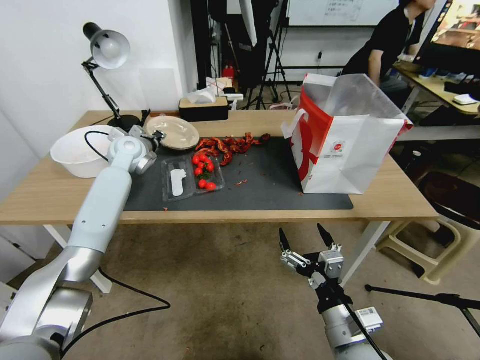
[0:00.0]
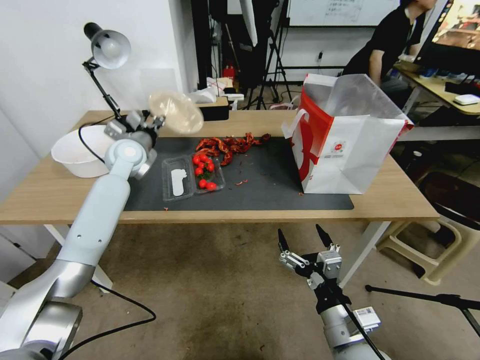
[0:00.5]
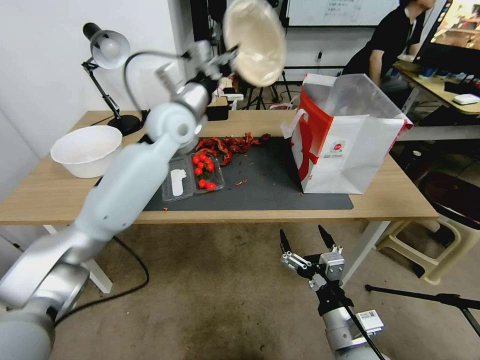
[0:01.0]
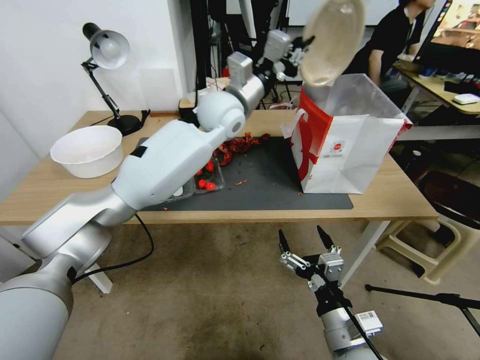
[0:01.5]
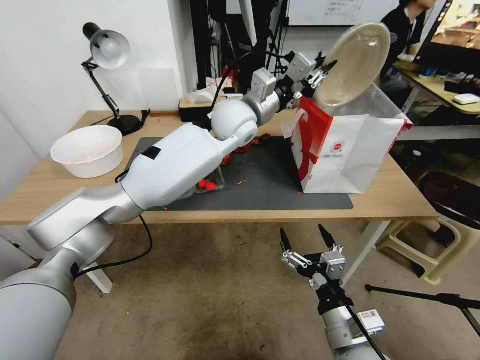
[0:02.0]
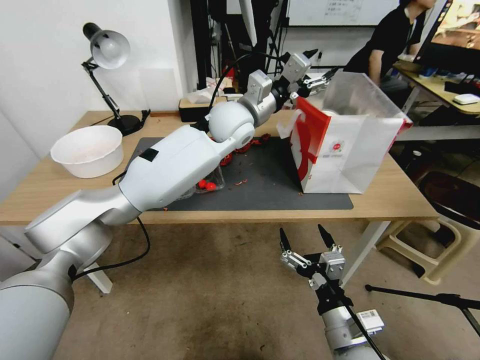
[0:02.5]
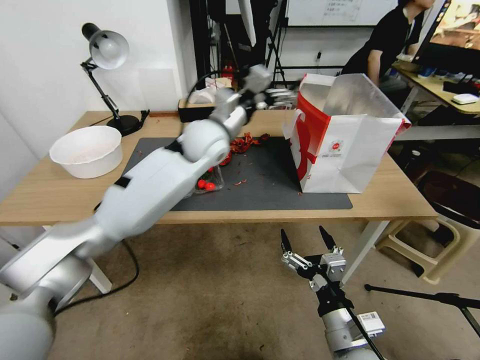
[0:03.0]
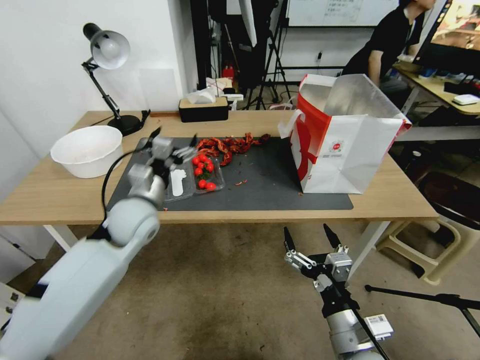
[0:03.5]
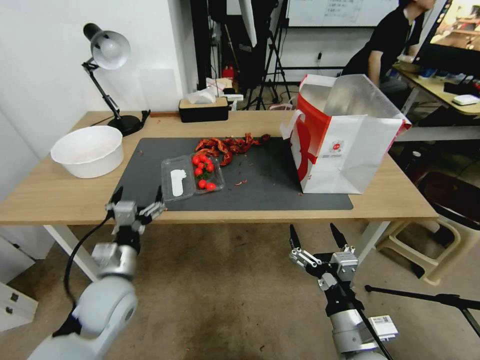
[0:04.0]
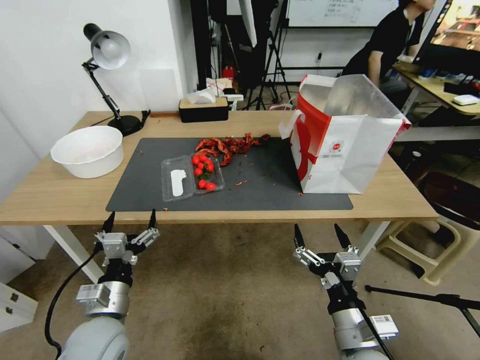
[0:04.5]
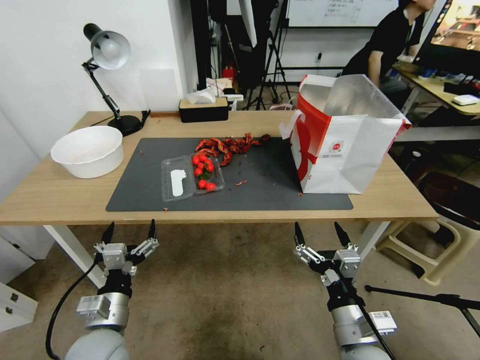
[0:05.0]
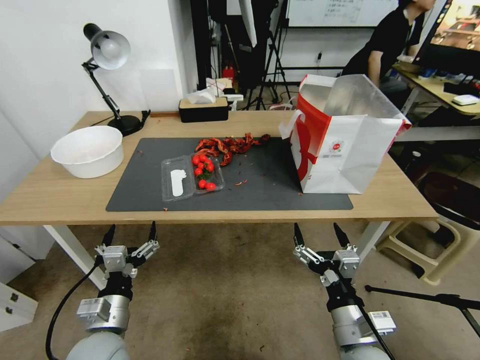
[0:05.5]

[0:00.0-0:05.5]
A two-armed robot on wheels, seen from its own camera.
0:00.0 to 0:02.0: The left gripper is displaced to the right and upward by about 30 cm.
0:02.0 to 0:03.5: The left gripper is displaced to the left, downward and backward by some 30 cm, and opens up.
0:03.5 to 0:05.5: The left gripper heads backward and downward, covering roughly 25 cm.

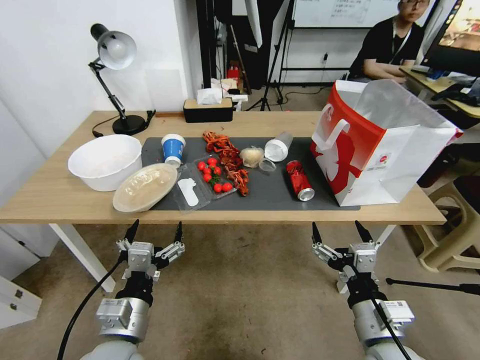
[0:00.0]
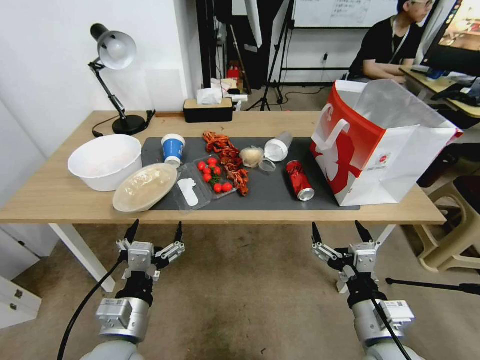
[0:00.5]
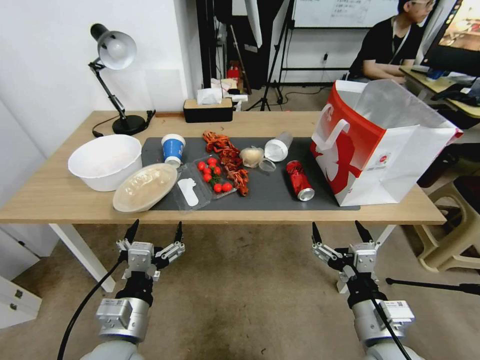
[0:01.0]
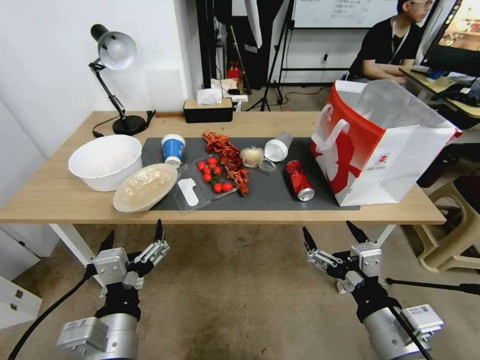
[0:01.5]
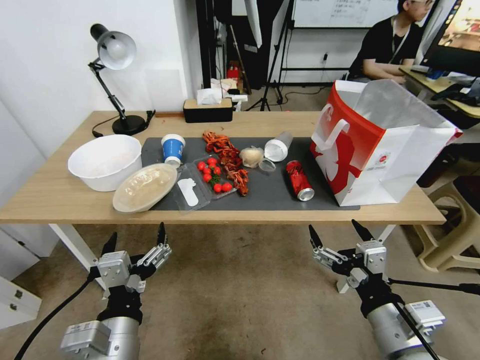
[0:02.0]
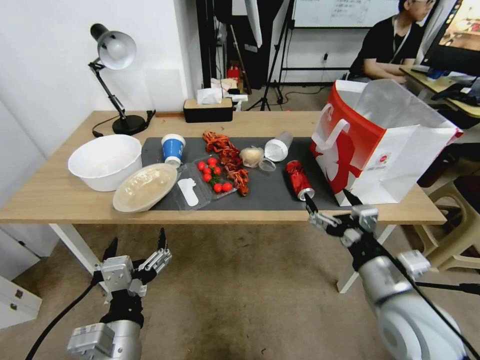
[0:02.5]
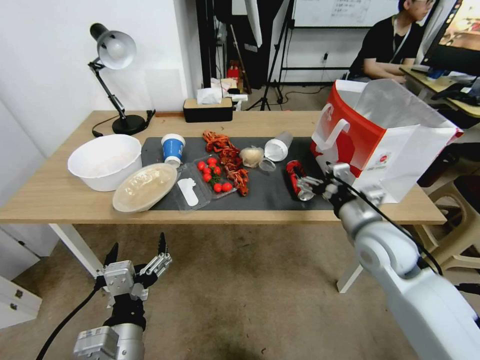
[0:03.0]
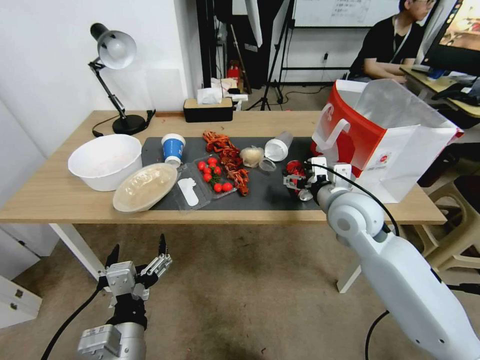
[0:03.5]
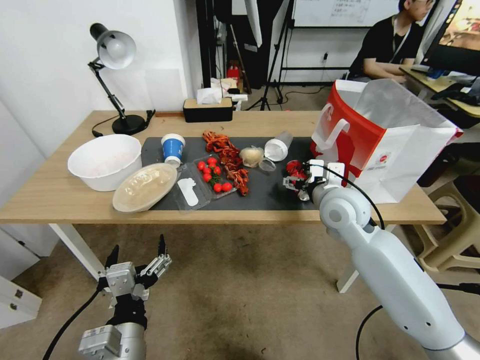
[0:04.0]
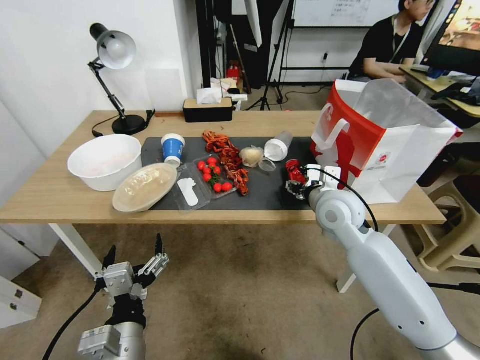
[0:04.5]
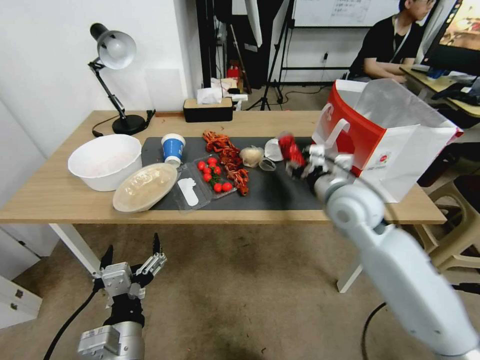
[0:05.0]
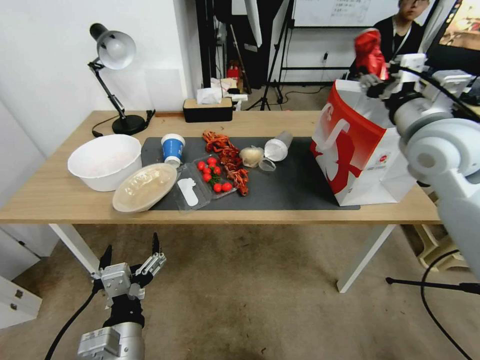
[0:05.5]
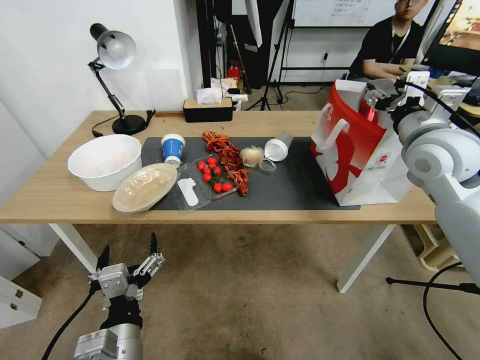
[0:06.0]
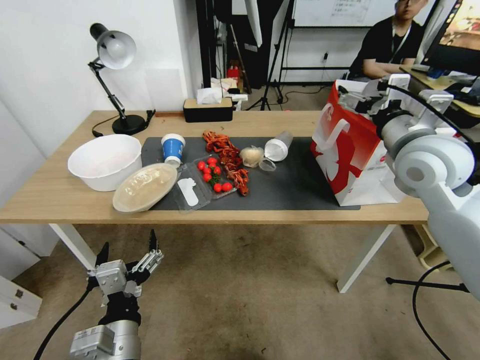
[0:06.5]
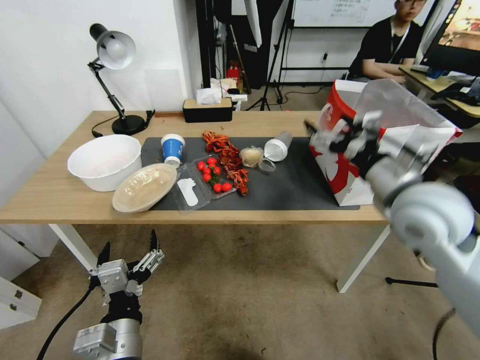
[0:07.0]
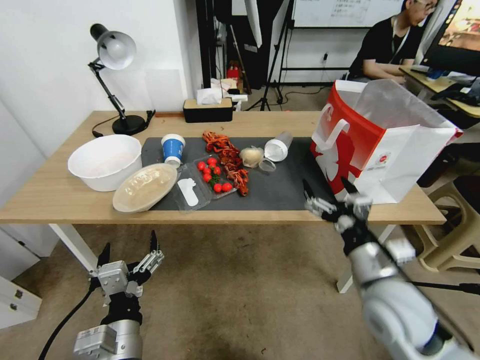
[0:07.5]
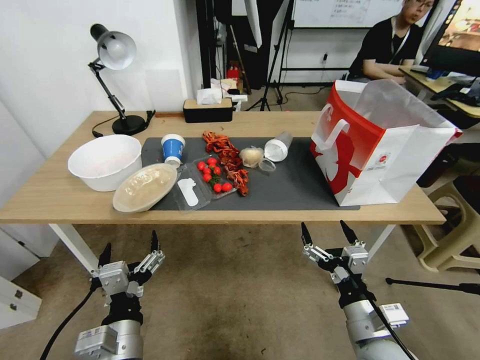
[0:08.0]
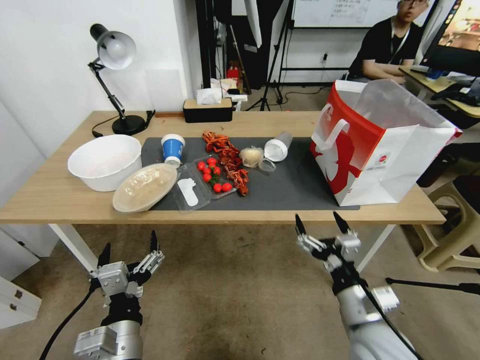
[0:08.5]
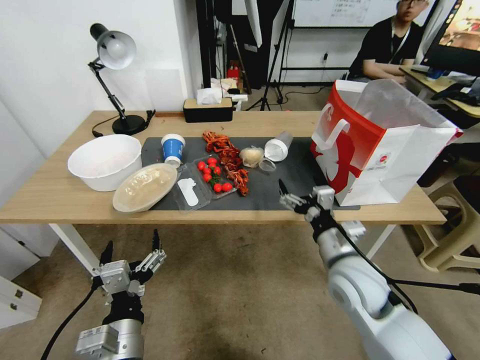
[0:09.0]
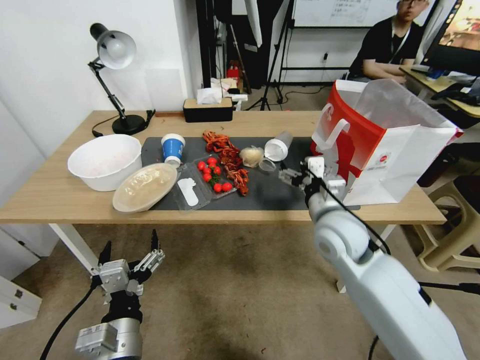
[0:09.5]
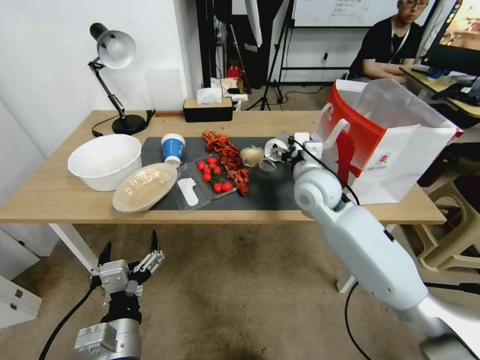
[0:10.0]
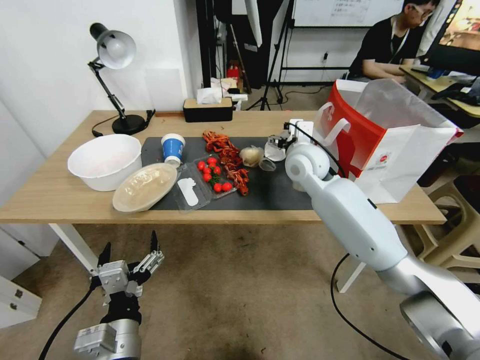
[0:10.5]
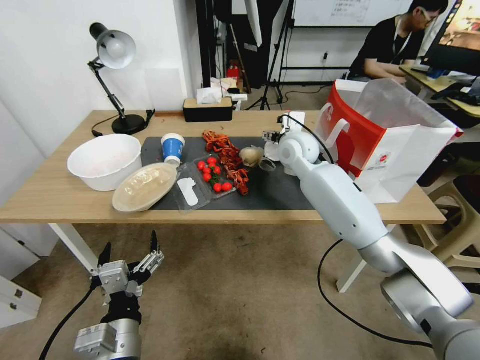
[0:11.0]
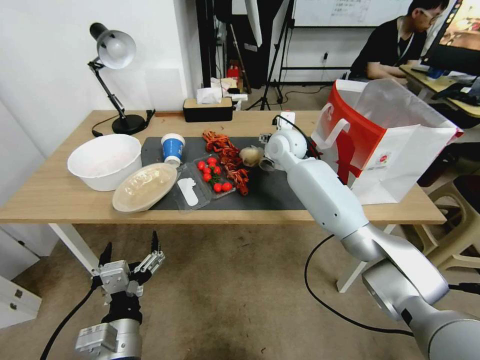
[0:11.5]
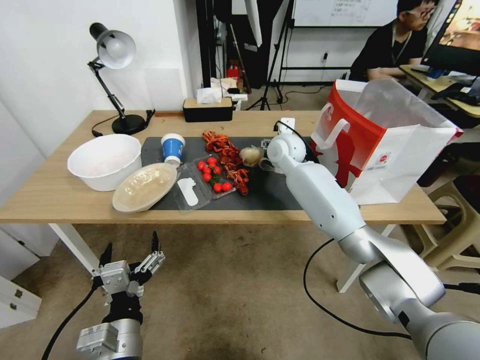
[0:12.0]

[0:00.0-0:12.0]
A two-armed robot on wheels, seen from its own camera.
0:02.0 to 0:04.0: The right gripper shifts approximately 30 cm forward.
0:04.0 to 0:06.0: The right gripper moves upward and to the right, some 20 cm.
0:06.0 to 0:08.0: The right gripper travels backward and downward by roughly 35 cm.
0:08.0 to 0:10.0: The right gripper travels forward and upward by some 30 cm.
0:10.0 to 0:12.0: The right gripper is displaced forward by approximately 15 cm.

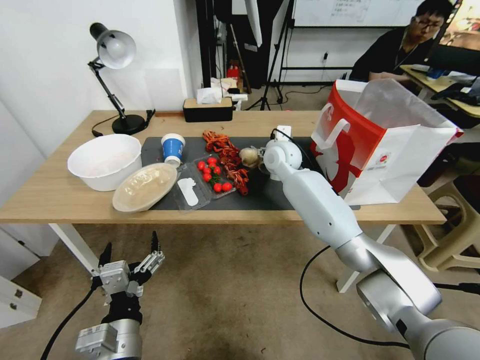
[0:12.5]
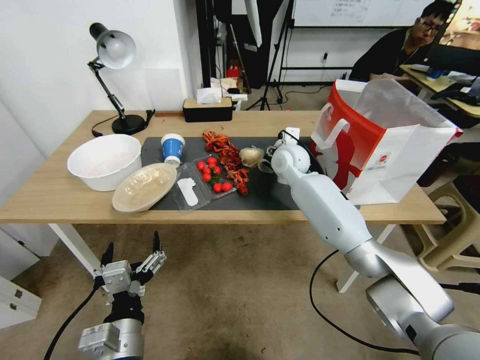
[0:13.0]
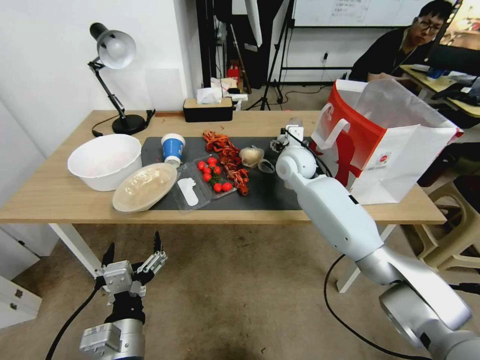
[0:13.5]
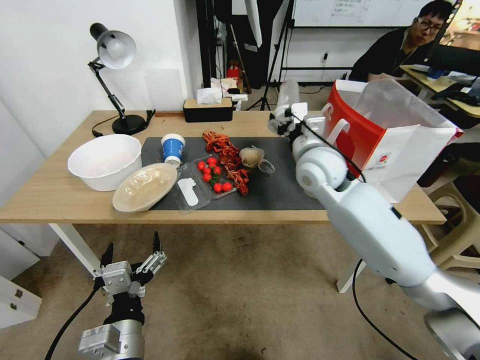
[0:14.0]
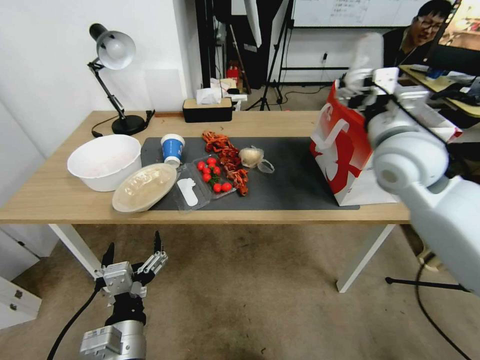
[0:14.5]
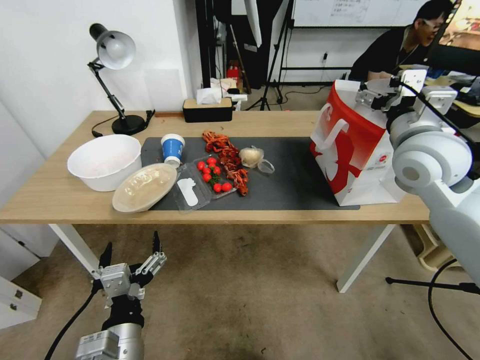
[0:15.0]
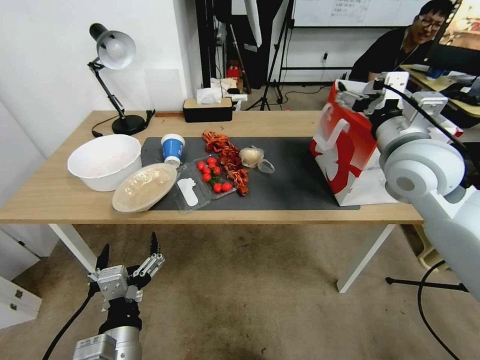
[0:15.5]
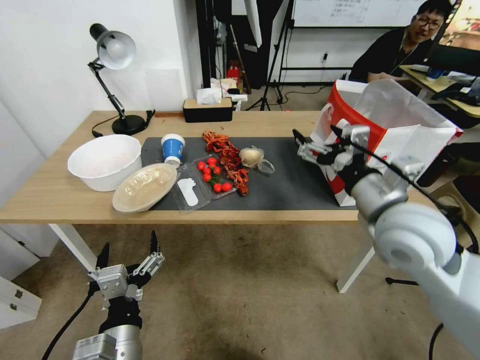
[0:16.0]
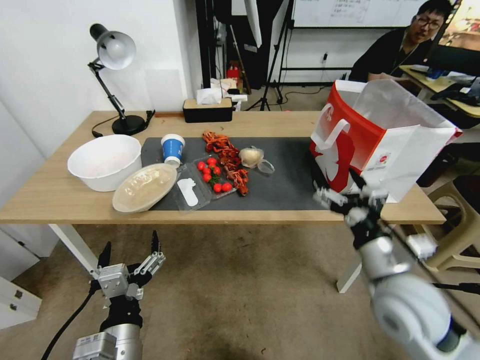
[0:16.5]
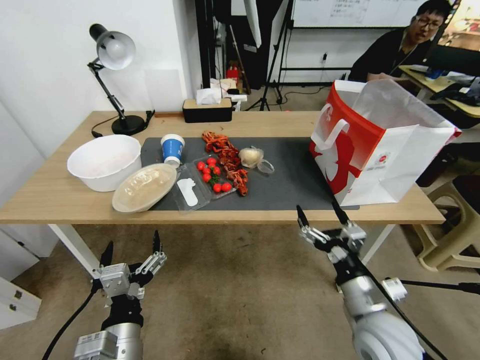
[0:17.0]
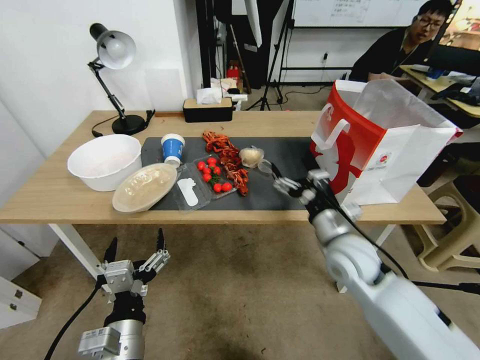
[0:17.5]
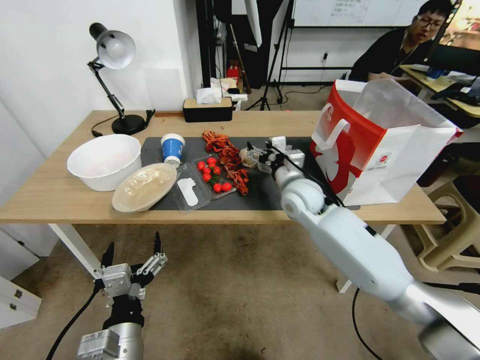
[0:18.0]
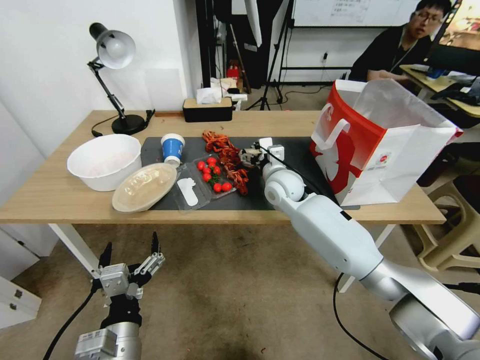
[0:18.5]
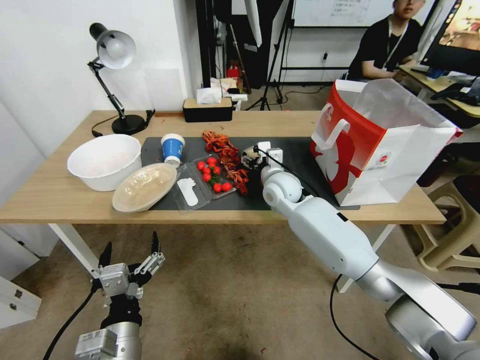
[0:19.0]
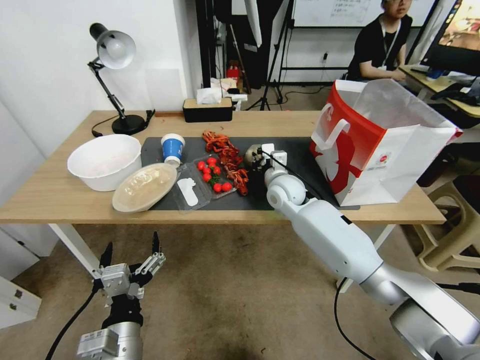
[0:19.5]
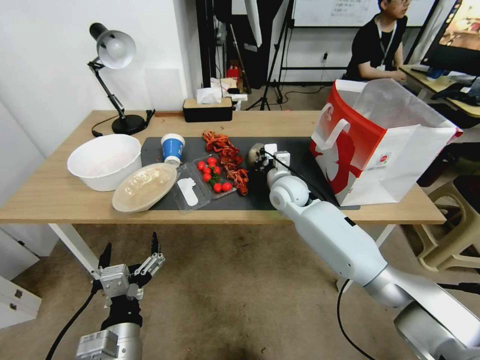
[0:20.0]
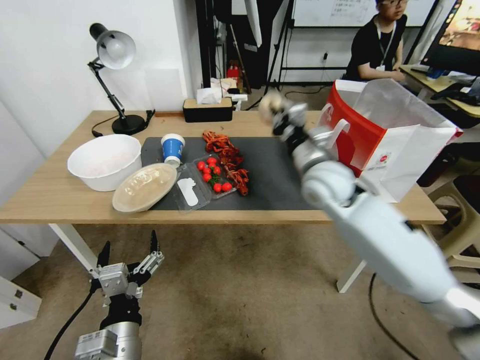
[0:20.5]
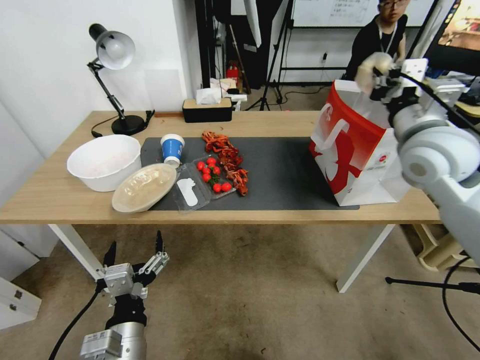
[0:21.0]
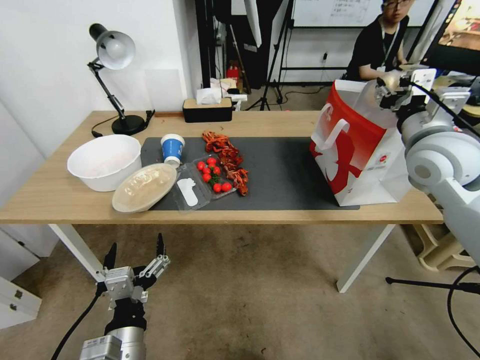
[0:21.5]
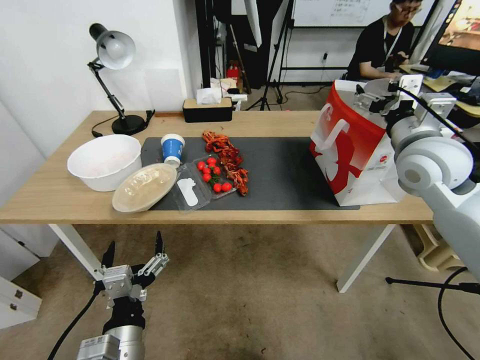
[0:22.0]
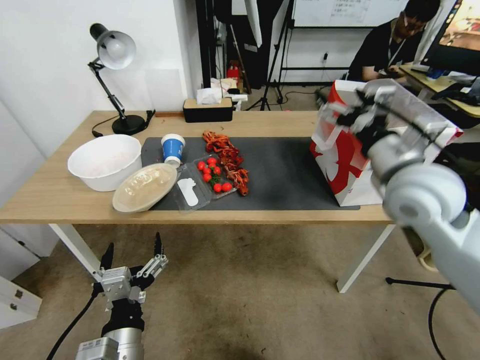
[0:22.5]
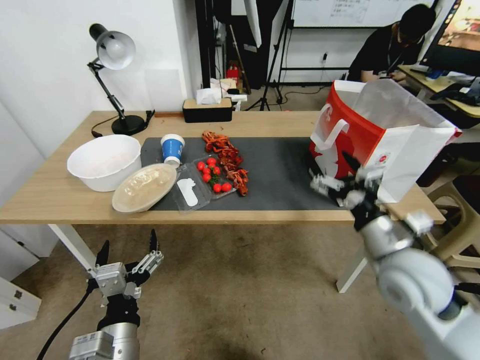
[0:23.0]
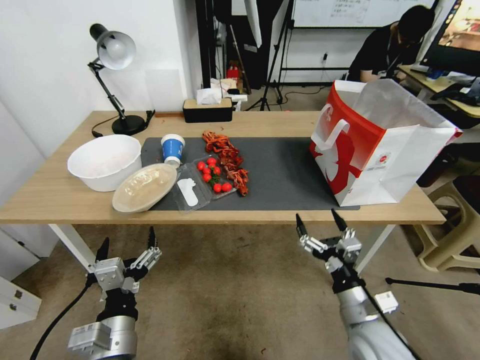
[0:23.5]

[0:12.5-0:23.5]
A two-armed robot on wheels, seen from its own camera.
0:12.5 to 0:14.5: The right gripper is displaced backward, to the right and upward by about 25 cm.
0:14.5 to 0:16.0: There are only small adjustments of the grippers.
0:16.0 to 0:18.0: The right gripper shifts some 20 cm downward and to the left, and moves about 20 cm backward and comes back.
0:18.0 to 0:20.0: The right gripper changes place by some 5 cm, and closes up.
0:20.0 to 0:21.5: The right gripper goes some 30 cm to the right, upward and backward, and opens its fingers.
0:21.5 to 0:23.5: The right gripper moves downward and backward, about 35 cm, and opens its fingers.
